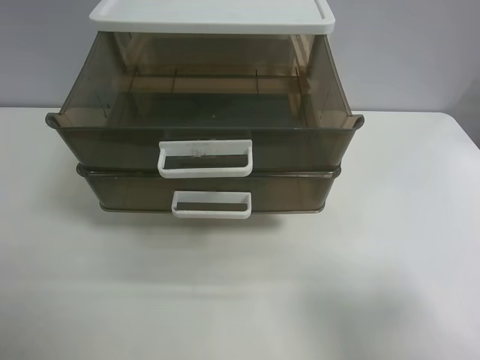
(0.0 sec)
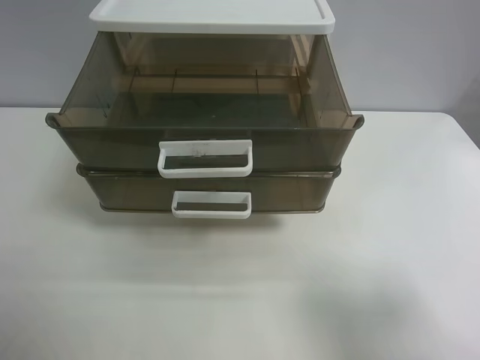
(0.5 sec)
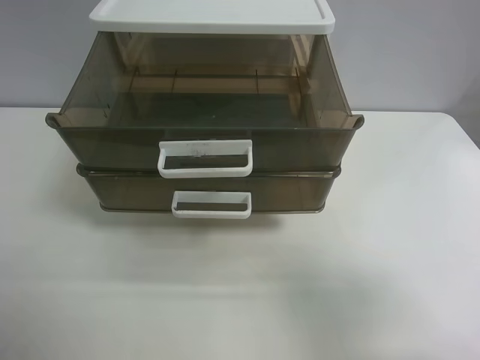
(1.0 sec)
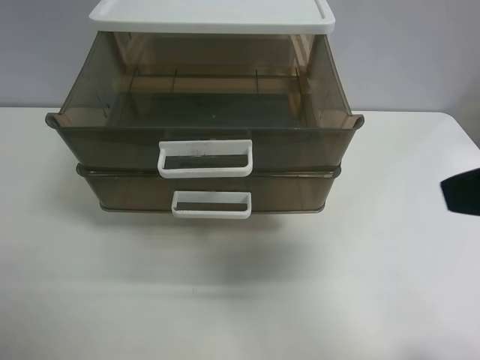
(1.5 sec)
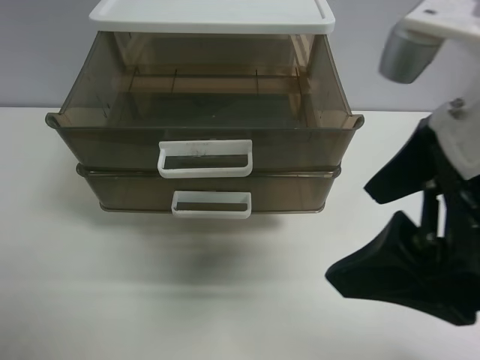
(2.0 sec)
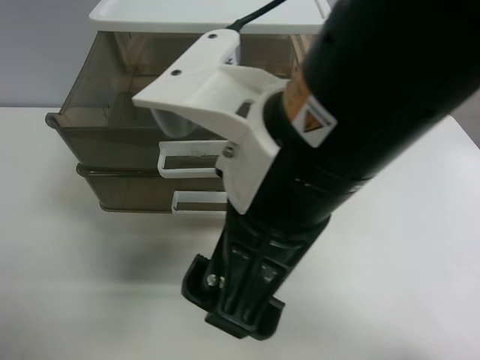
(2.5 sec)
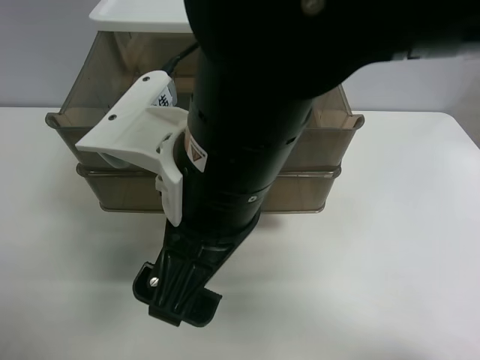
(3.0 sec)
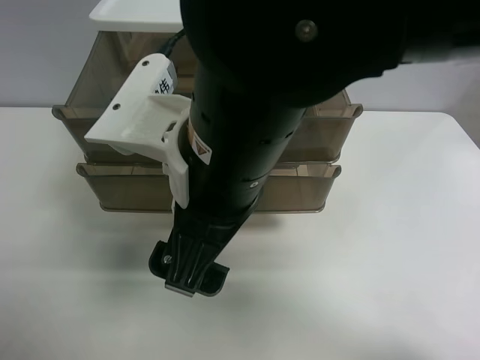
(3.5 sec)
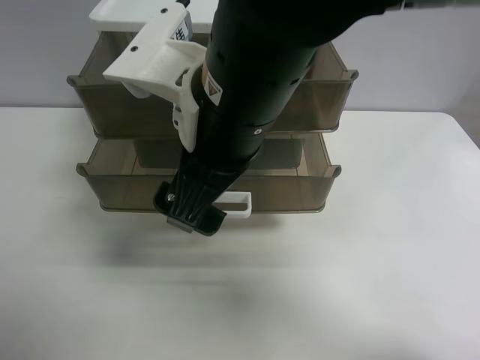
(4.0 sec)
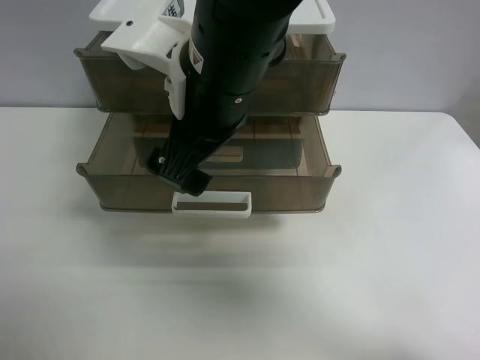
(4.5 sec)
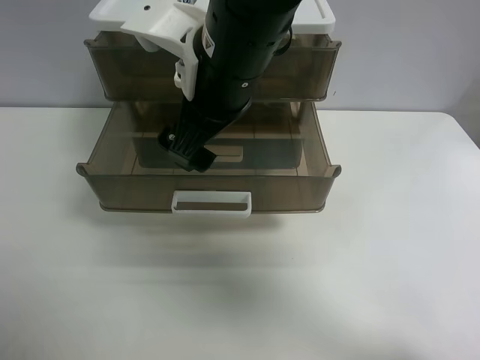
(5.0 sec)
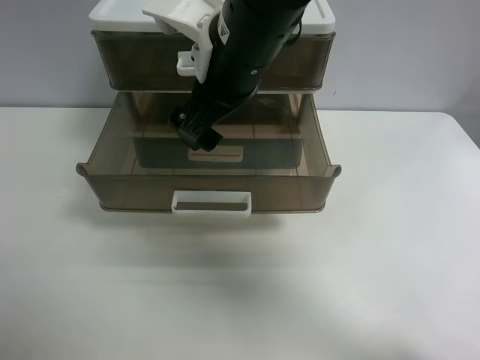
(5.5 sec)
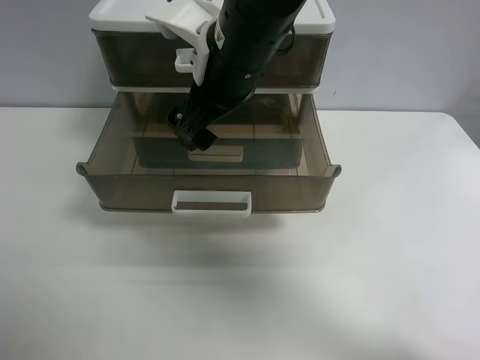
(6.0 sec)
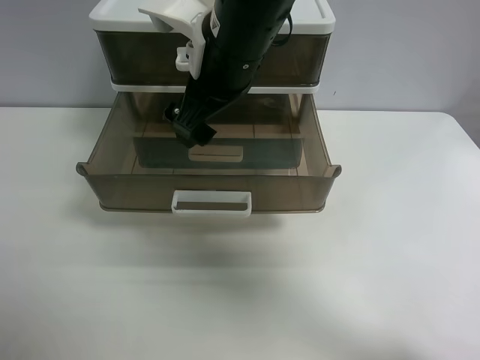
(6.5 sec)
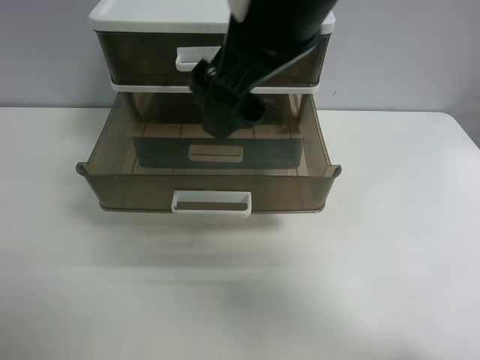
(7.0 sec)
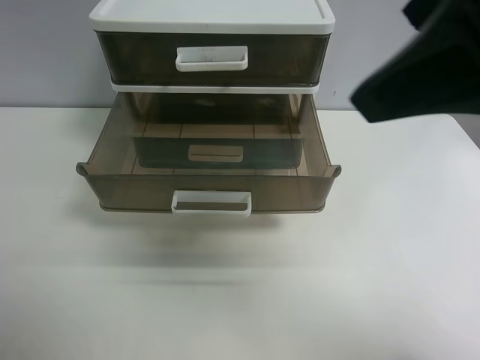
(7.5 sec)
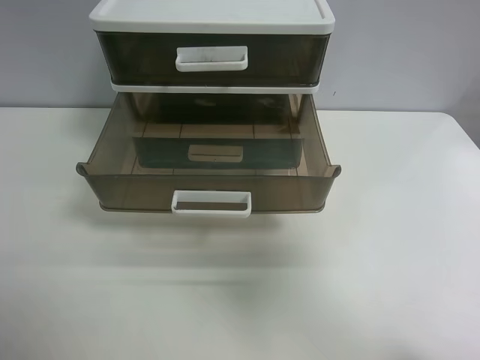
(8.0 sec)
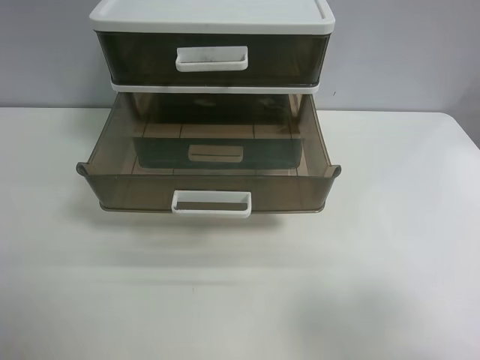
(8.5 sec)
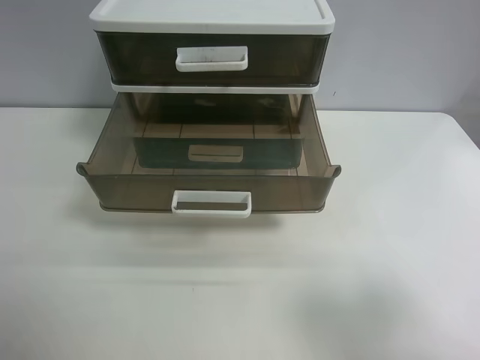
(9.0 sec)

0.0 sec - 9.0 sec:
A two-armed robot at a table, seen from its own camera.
Task of the whole recording: close the top drawer.
Step, 0.0 sec - 3.0 sec: Use the right gripper to touch the topmost layer of the storage cabinet.
Step, 3.5 sec - 6.0 sec: Push the top drawer closed.
0.0 sec - 2.0 sec: The right gripper moves to the left and forward, about 20 cm.
2.0 sec - 4.5 sec: The right gripper shifts some 20 cm to the left and forward.
4.5 sec - 7.0 sec: The right gripper goes roughly 10 cm upward and to the right.
7.0 sec - 9.0 sec: The right gripper moves to the right, backward and downward, approximately 35 cm.
